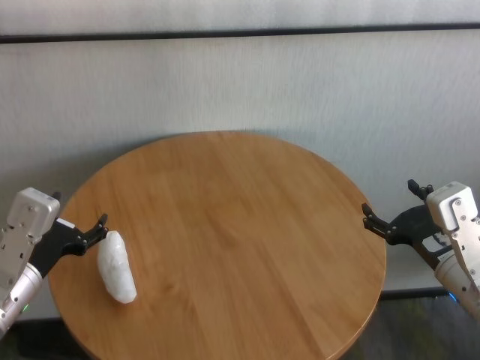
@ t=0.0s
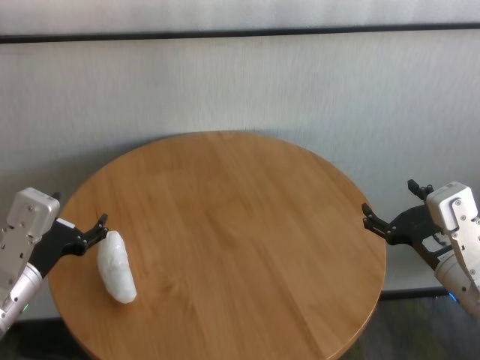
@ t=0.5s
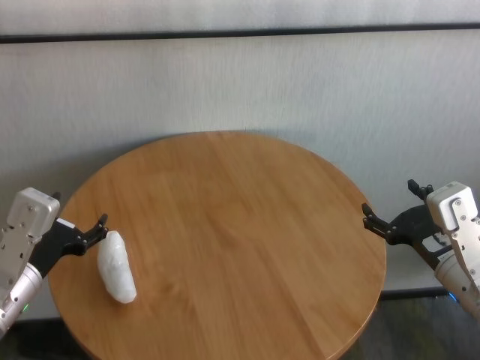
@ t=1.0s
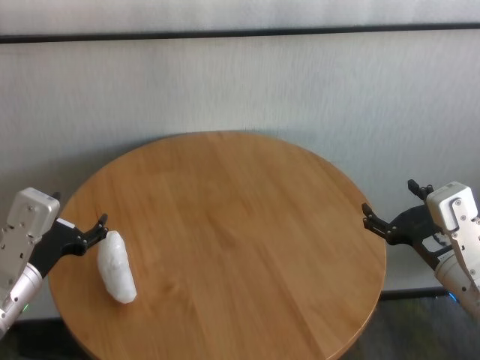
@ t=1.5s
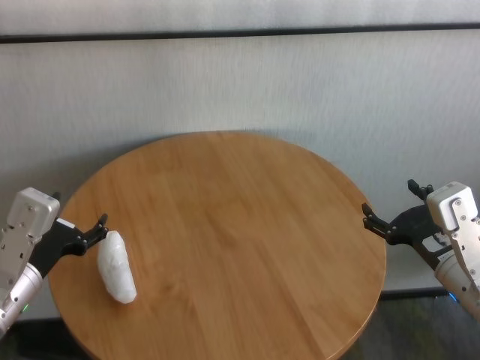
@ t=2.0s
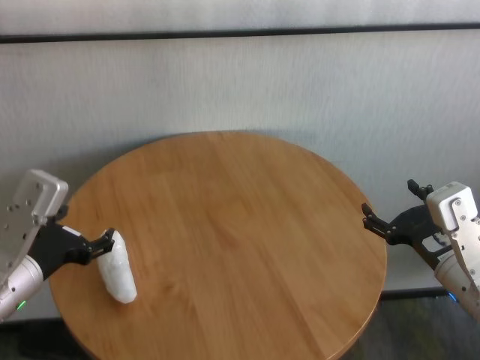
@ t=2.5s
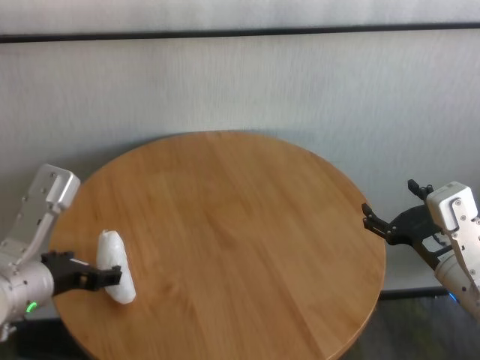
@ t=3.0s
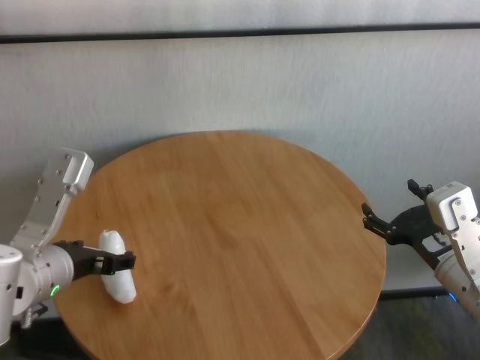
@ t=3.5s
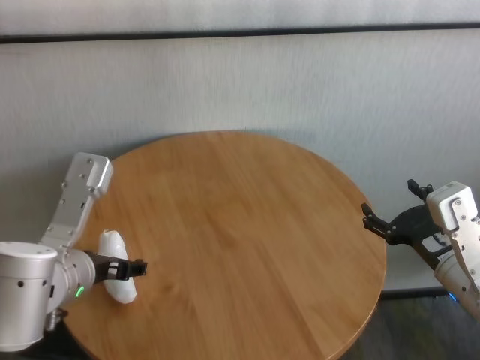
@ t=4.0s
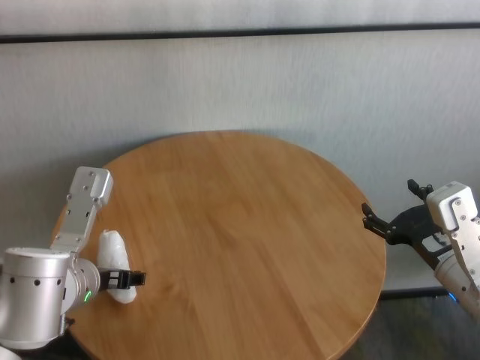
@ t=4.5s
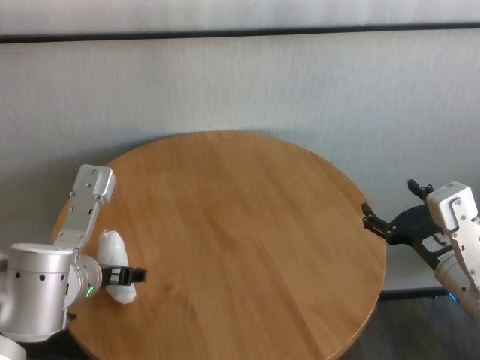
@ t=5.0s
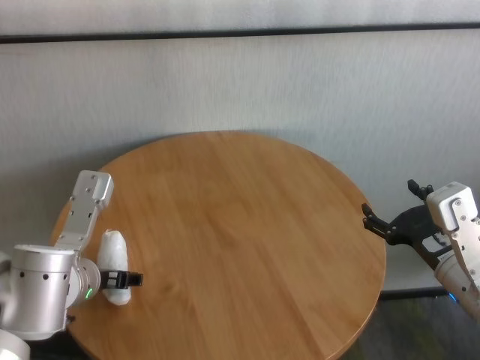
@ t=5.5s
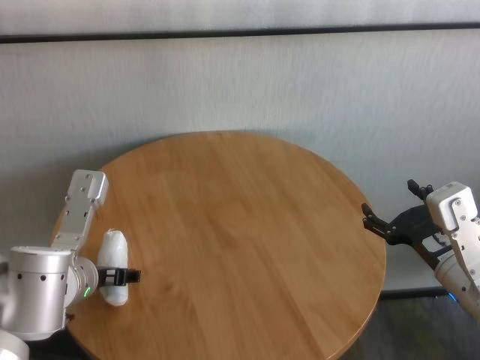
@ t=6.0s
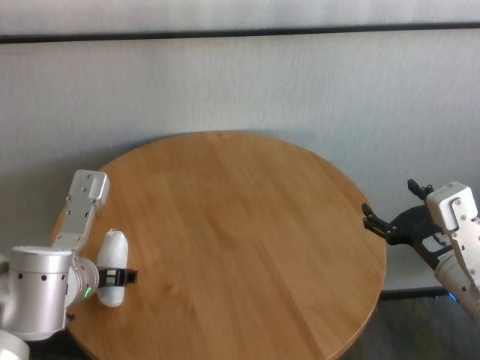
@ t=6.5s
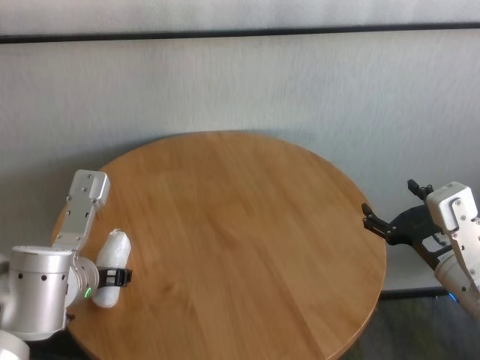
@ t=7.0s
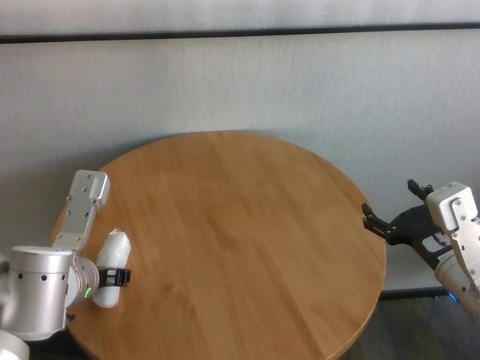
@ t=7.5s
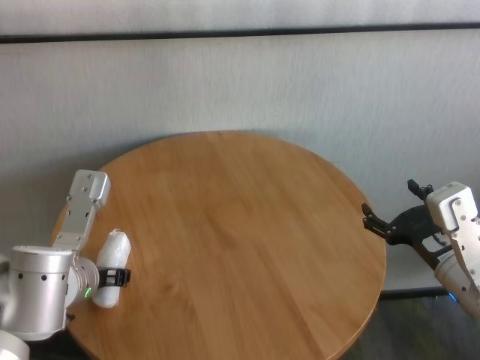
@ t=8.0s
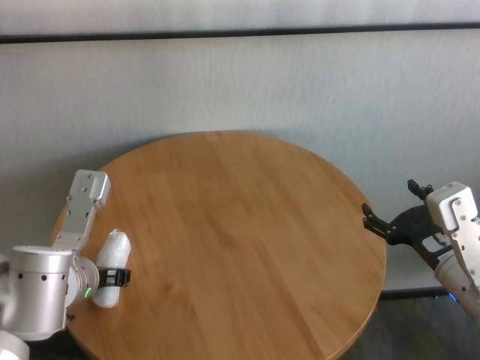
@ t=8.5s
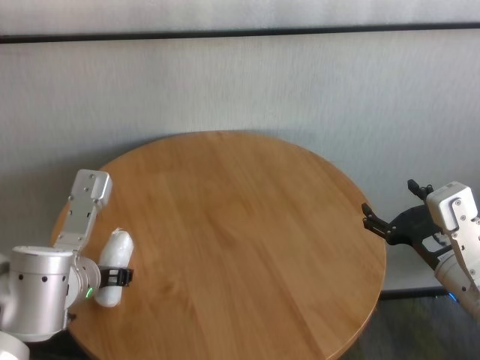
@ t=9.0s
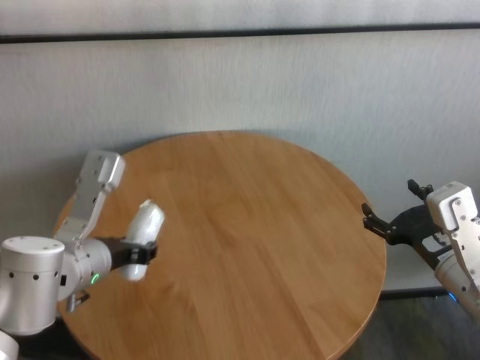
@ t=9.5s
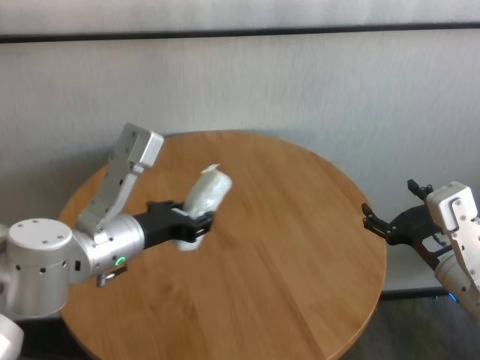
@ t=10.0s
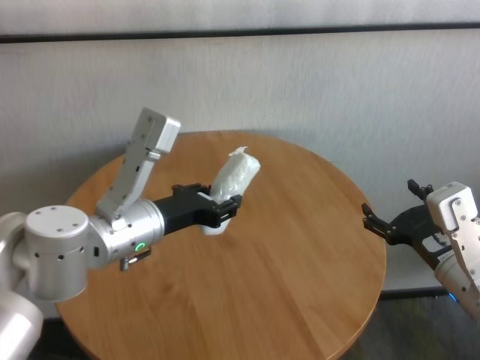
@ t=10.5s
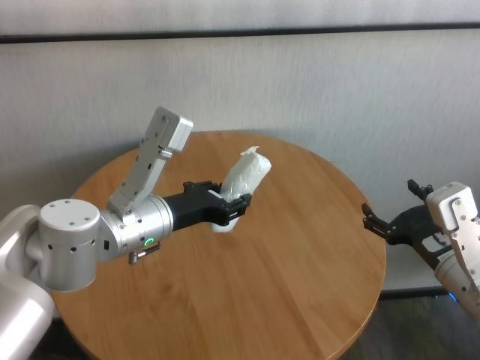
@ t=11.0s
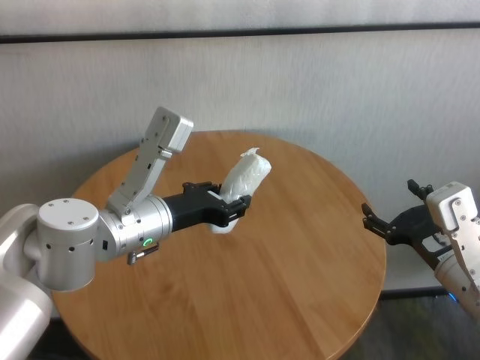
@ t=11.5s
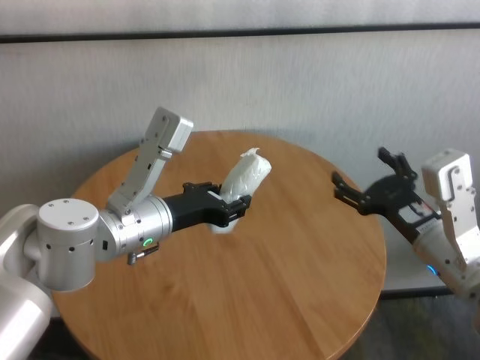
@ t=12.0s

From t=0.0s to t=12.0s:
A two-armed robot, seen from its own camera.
Task of the whole recording: One hand took the sandbag from the other hand and placed it on the table.
Step, from t=0.0s to t=7.0s: Grasp the paper ball with left gripper.

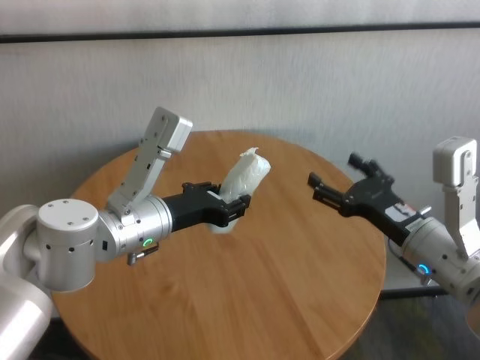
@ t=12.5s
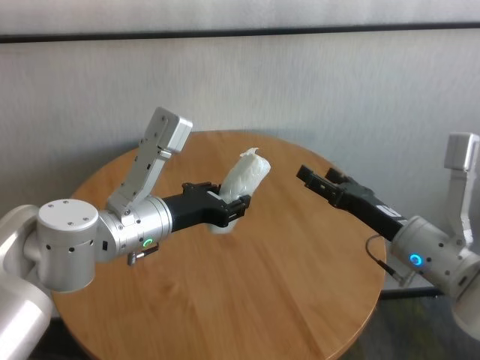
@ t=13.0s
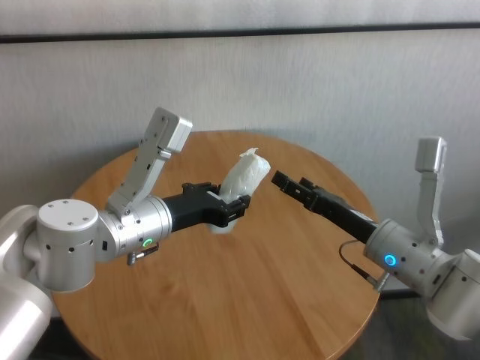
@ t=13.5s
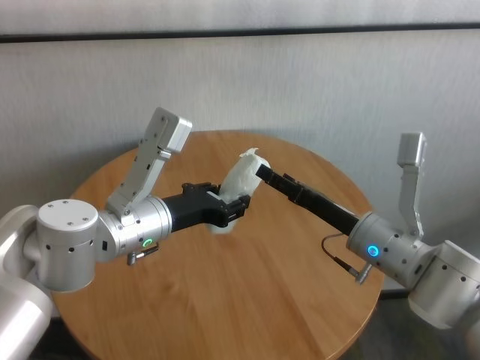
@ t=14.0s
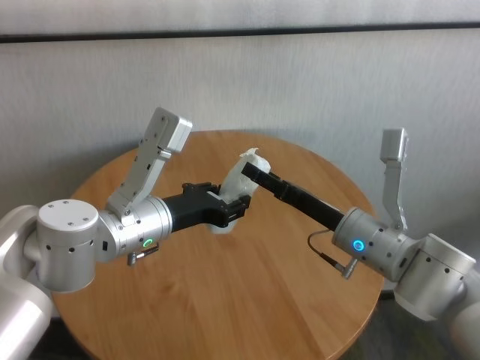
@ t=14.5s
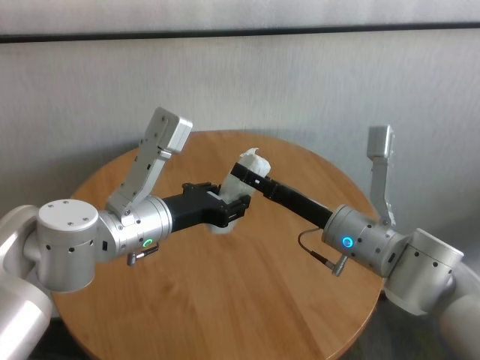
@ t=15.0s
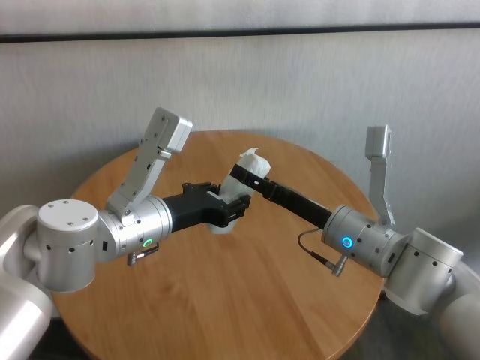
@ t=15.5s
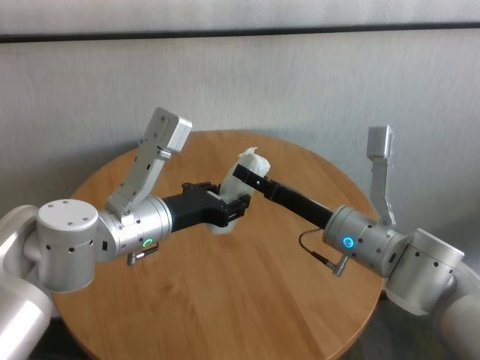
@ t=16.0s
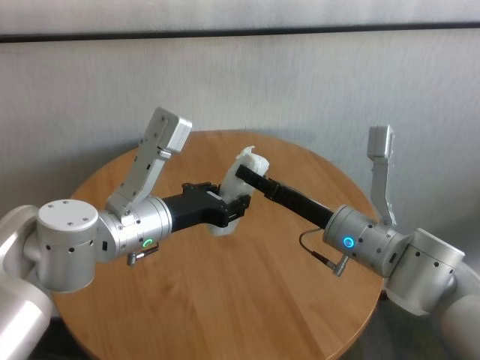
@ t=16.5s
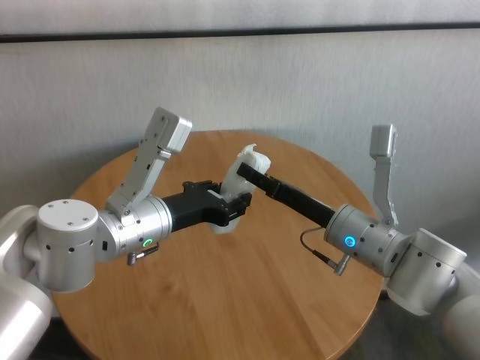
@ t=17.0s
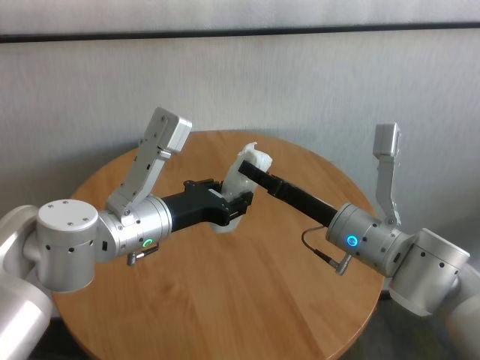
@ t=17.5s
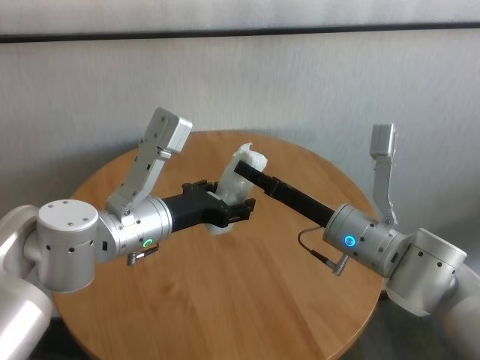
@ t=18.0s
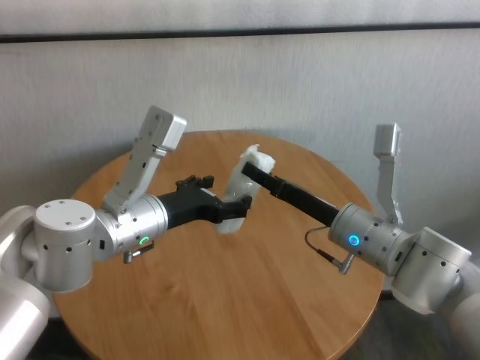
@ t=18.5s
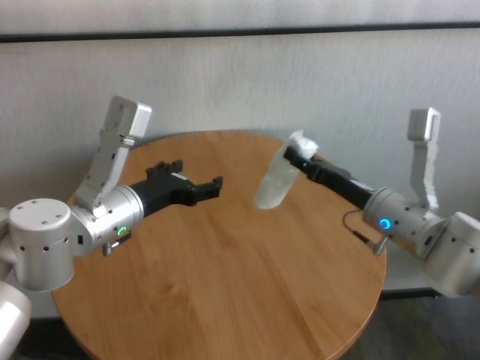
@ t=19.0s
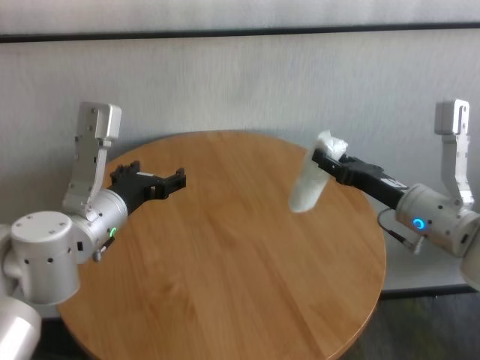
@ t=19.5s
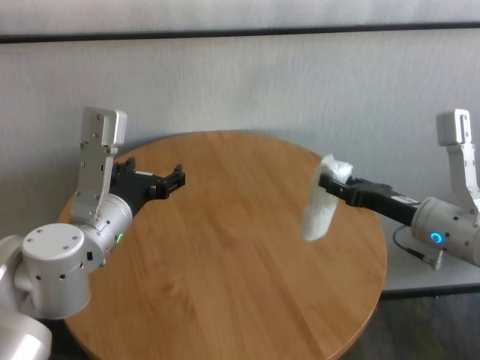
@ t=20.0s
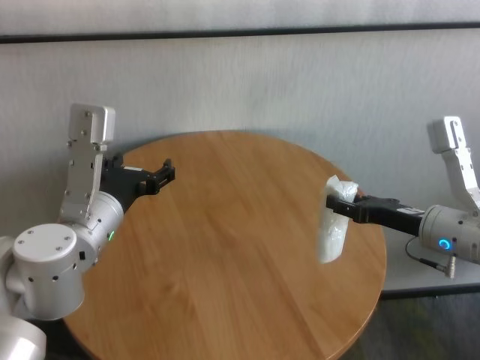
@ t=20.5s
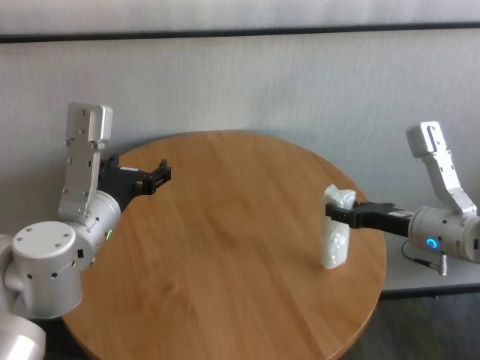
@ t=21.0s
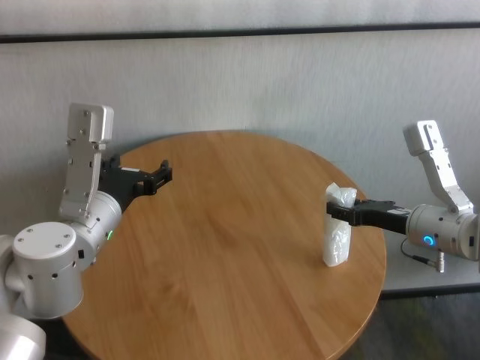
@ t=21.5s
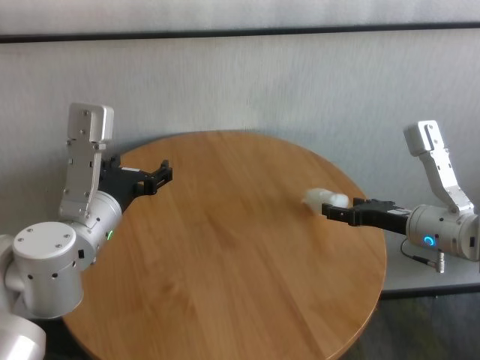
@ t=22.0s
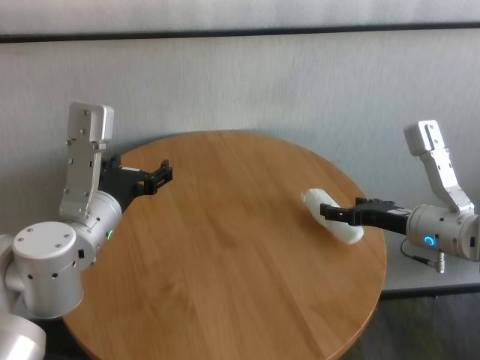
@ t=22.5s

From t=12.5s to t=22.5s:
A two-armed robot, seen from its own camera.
Task of the whole recording: One hand took the sandbag from the other hand and placed it on the table.
Step, from t=12.5s to t=18.5s: Pass the paper ball to the right gripper.
Step, from t=19.0s to t=22.0s: Place the paper ball on the table with right gripper.
